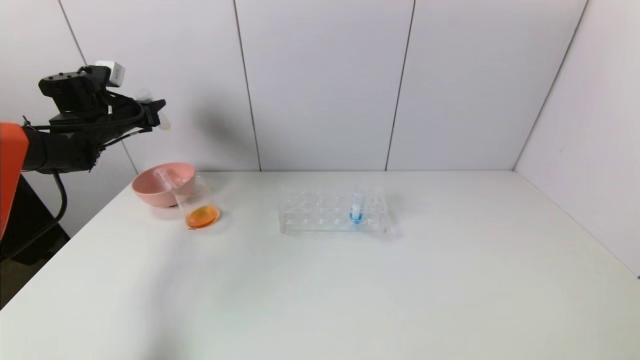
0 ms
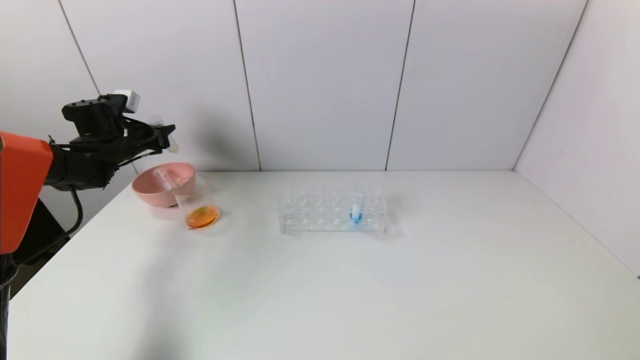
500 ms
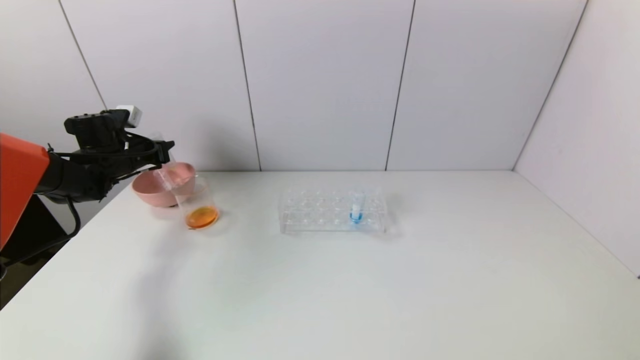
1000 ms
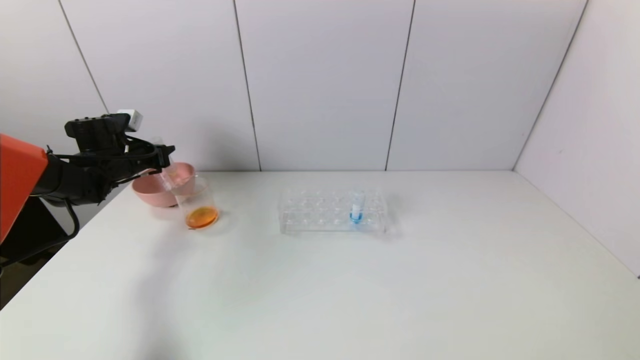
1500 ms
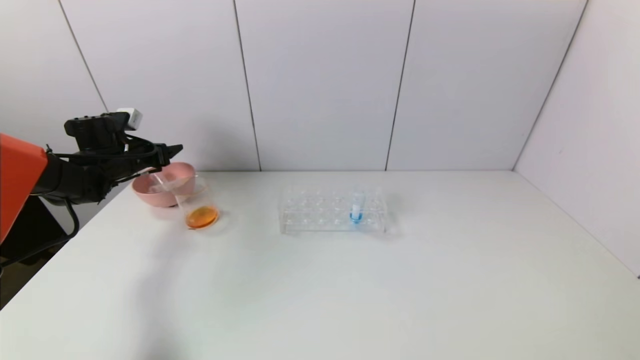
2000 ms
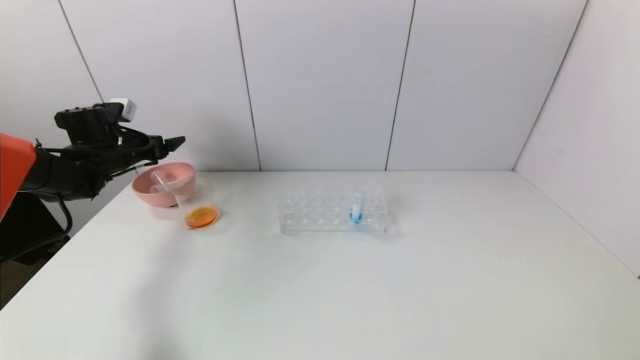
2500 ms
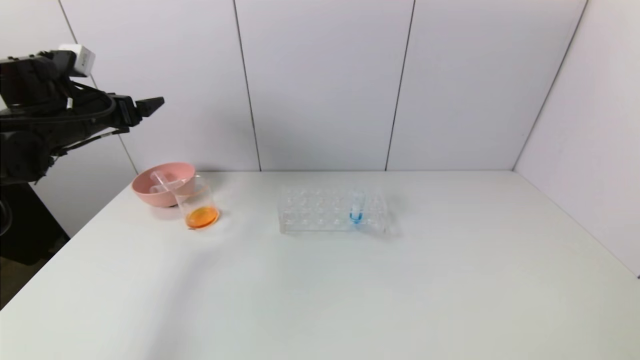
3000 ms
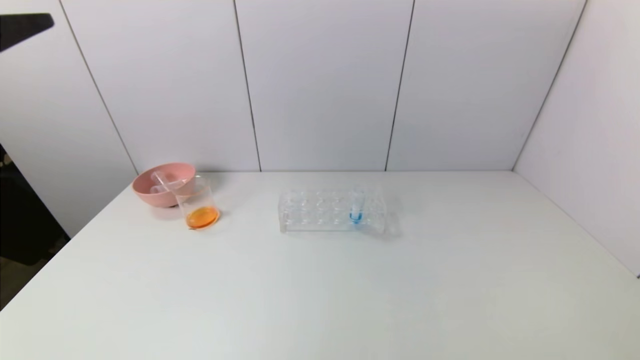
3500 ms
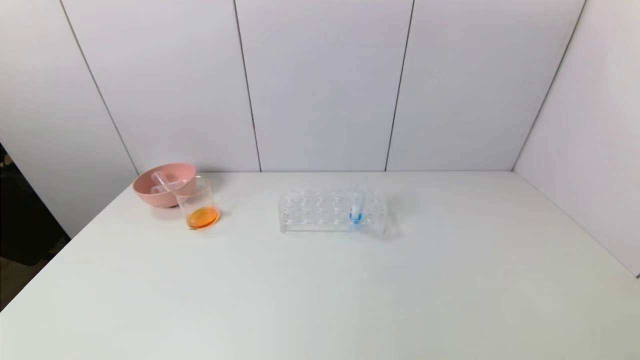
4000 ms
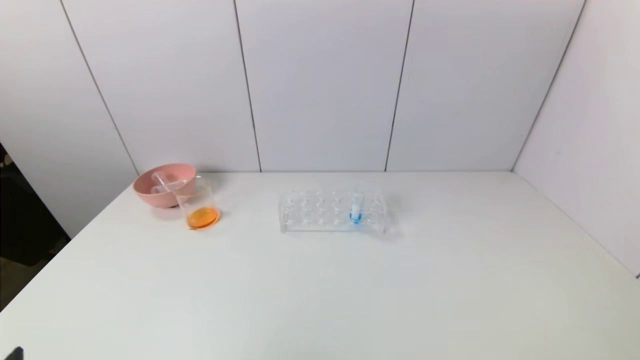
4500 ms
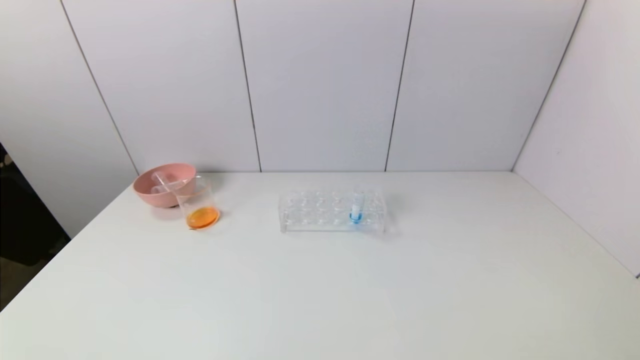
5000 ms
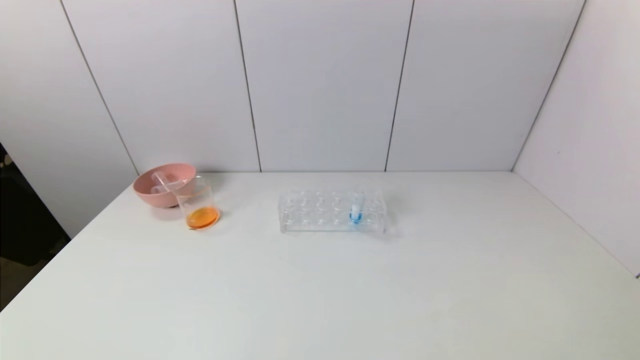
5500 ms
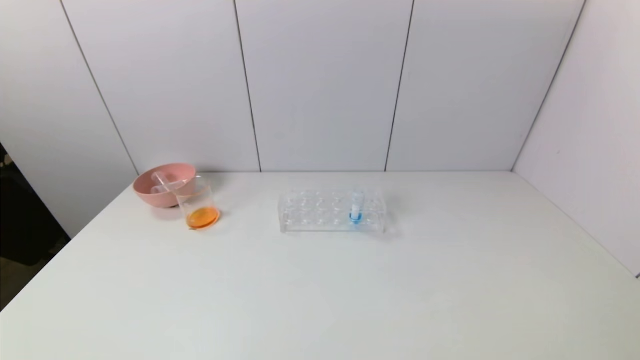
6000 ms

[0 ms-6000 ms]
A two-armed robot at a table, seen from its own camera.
Task of the whole recording: pick up the test tube with yellow pigment and the test tube with red pigment by grippers and pour them into the beaker.
Step, 0 ms to 2000 ms: Place the test tube into the pink bowl with the left gripper.
0 ms to 2000 ms: The left gripper is displaced downward by approximately 10 cm, and opens.
2000 ms to 4000 ms: The left gripper goes approximately 50 cm backward, and opens.

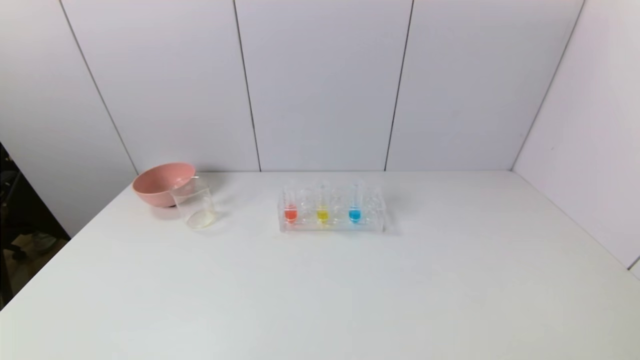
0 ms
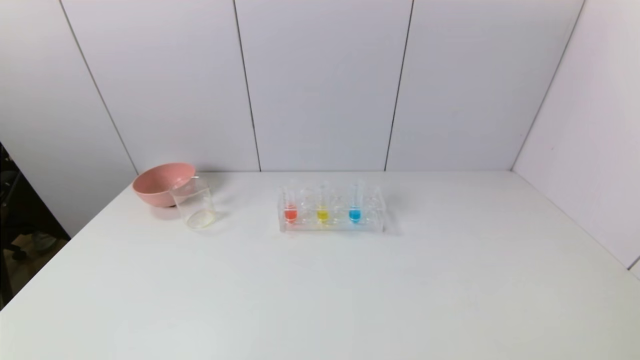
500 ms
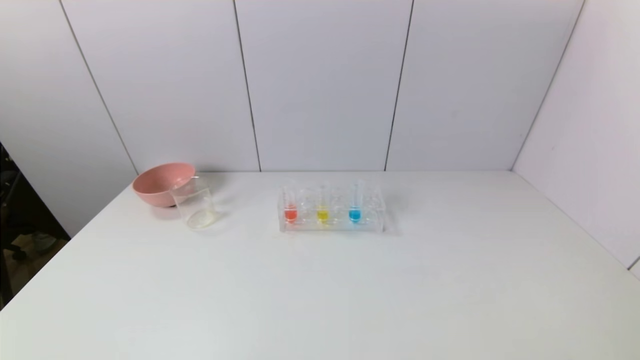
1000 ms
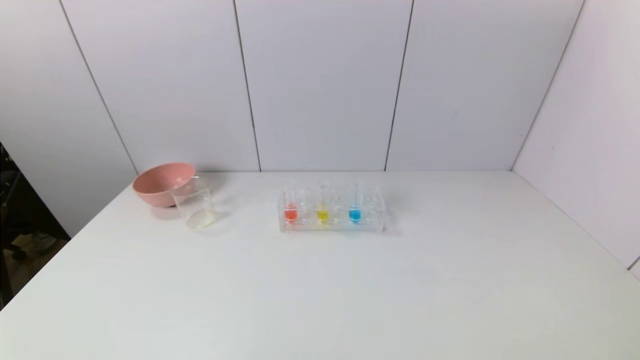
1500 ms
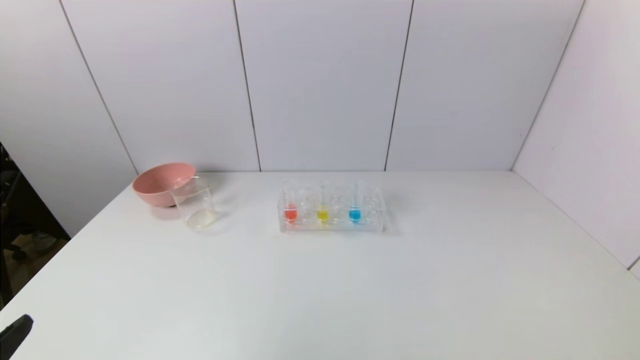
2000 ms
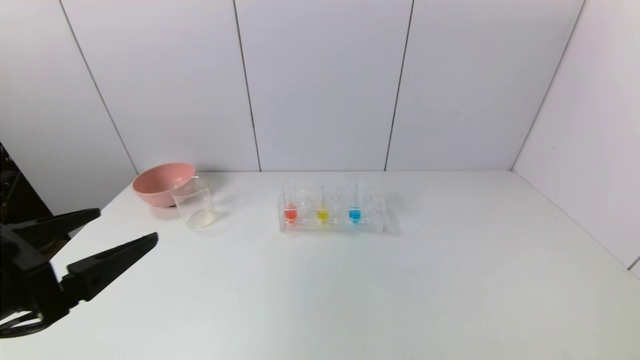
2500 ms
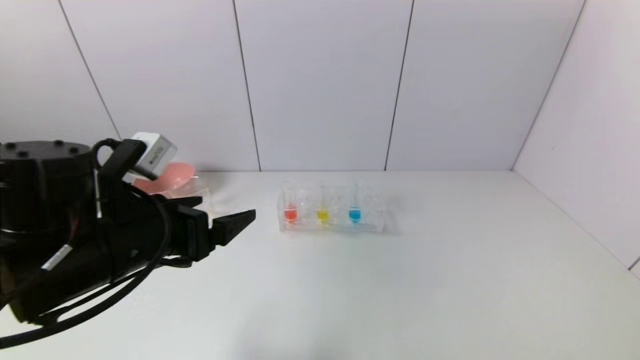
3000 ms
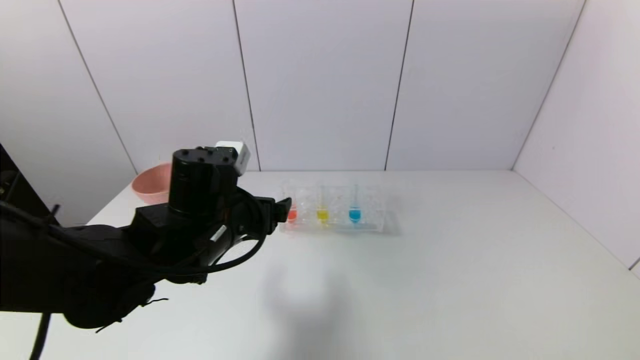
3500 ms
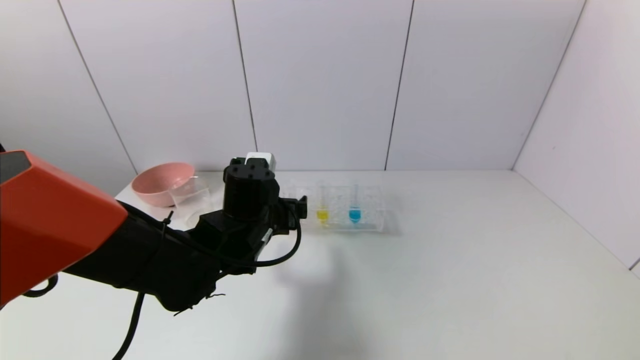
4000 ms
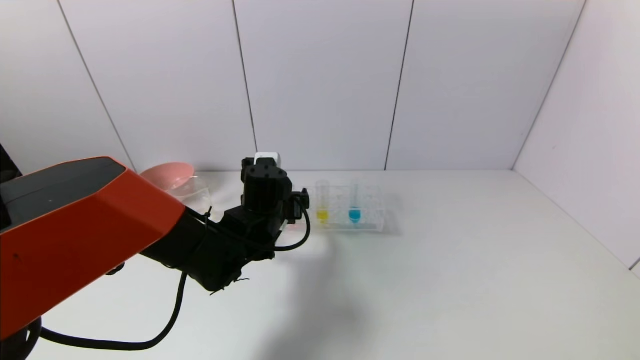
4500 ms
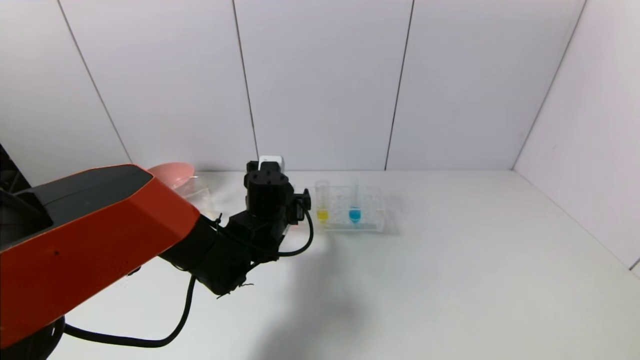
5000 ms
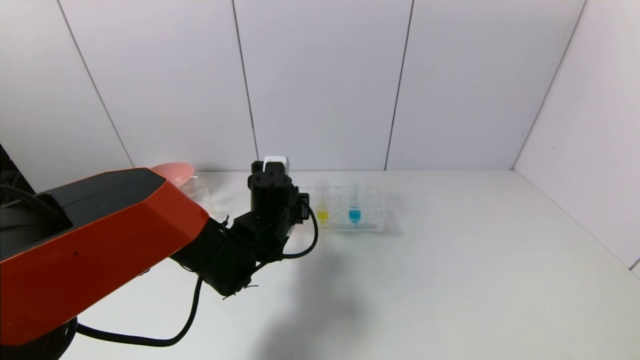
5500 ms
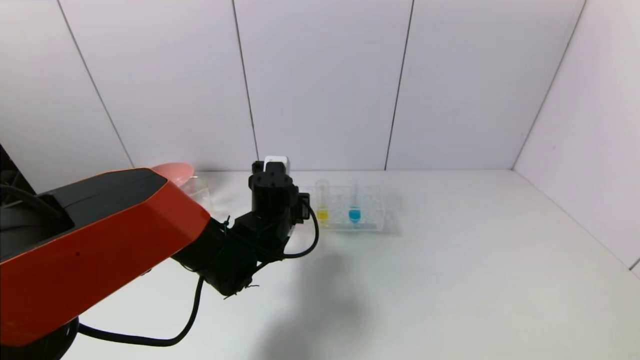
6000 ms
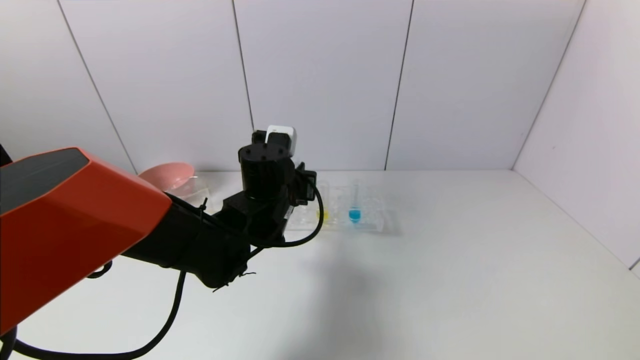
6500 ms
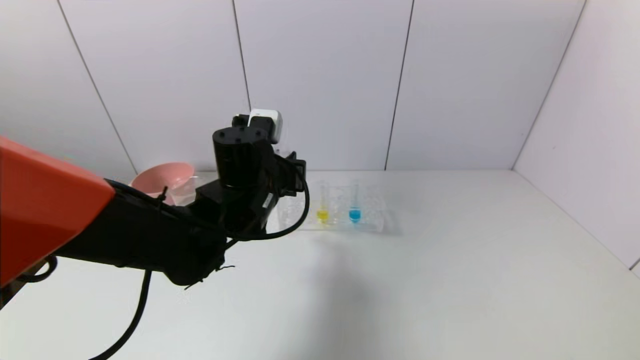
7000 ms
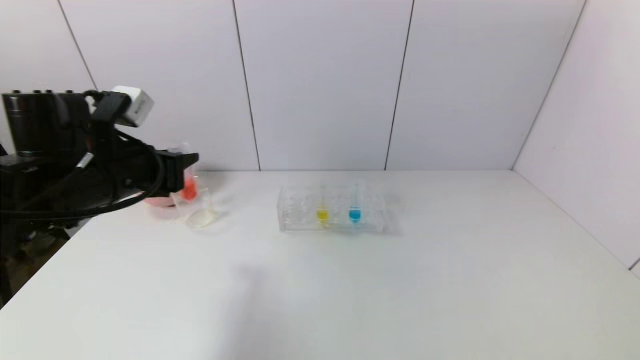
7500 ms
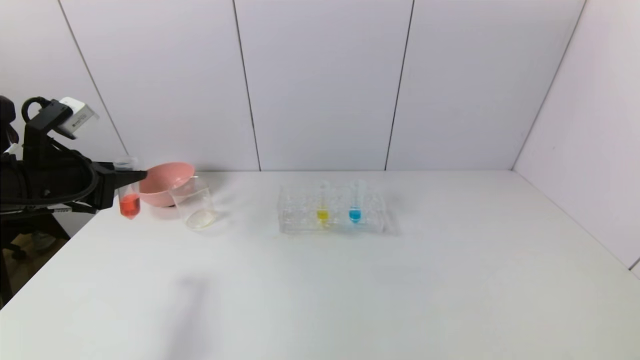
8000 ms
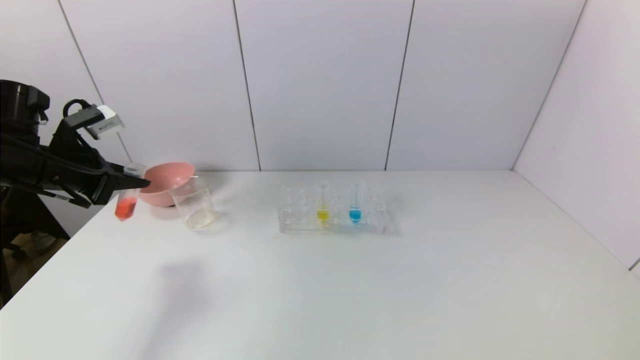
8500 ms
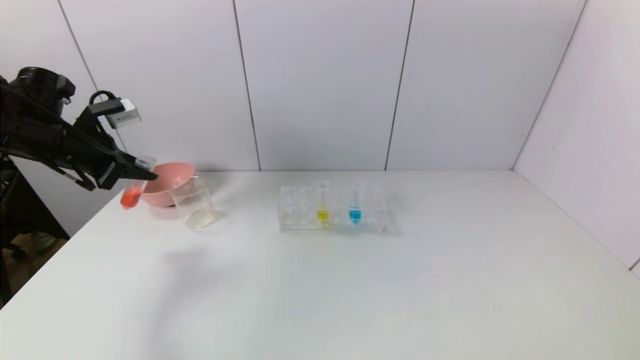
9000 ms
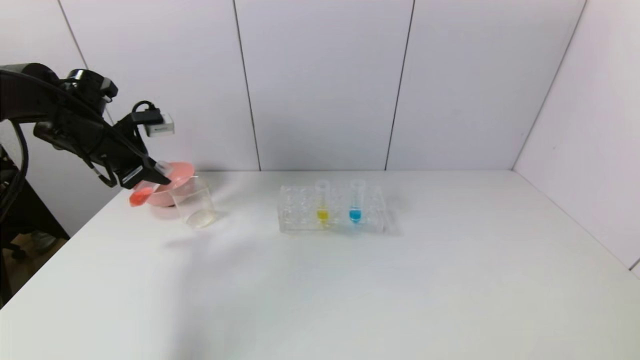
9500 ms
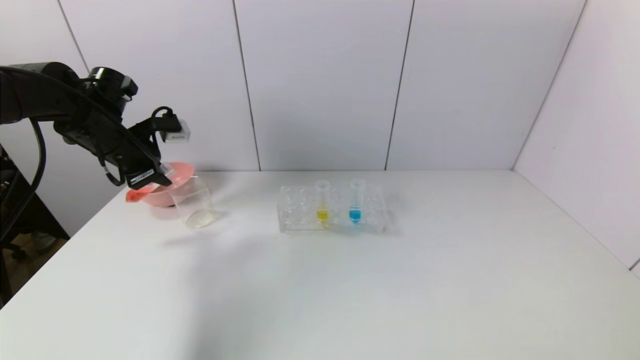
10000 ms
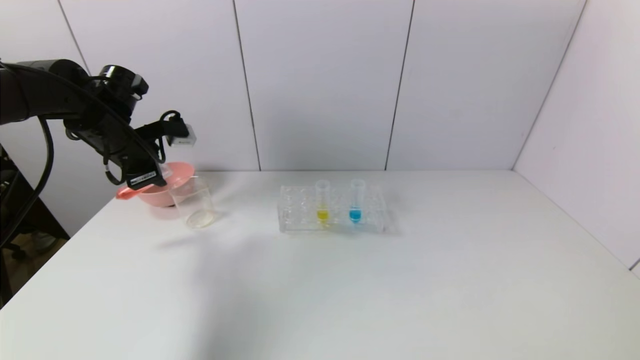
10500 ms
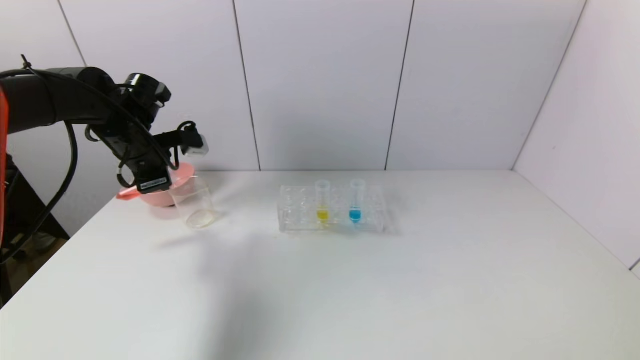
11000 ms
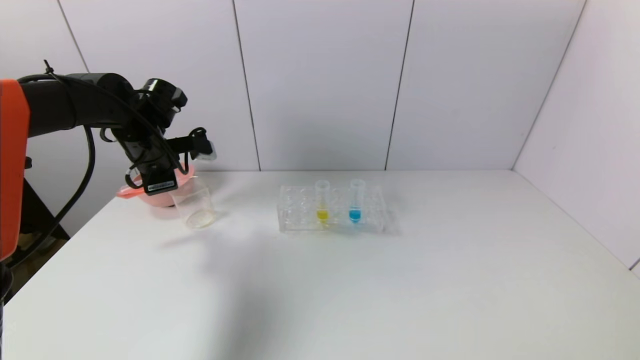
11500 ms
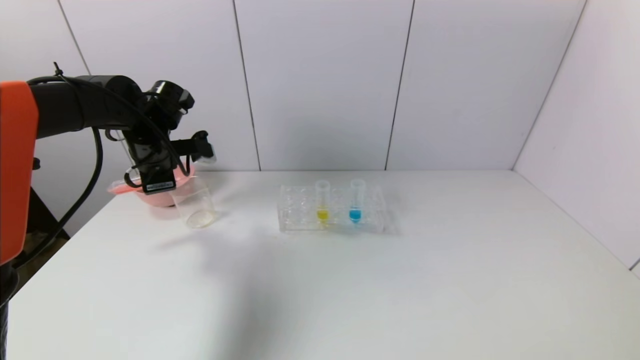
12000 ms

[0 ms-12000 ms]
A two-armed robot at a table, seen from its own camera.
Task of the whole recording: pick up the test tube with yellow pigment and the test tube with red pigment by grippers and pour them into the beaker.
Step, 0 ms to 5500 ms: Grasp the red reagent with the left gripper.
2000 ms to 4000 ms: The left gripper is displaced forward and to the right by about 35 cm.
4000 ms to 6000 ms: The left gripper changes place by approximately 5 cm, and closes up.
6000 ms to 8000 ms: The left gripper shifts roughly 30 cm to the left and upward.
8000 ms to 10000 ms: The left gripper travels forward by approximately 15 cm.
10000 ms to 12000 ms: The left gripper travels to the right by roughly 5 cm.

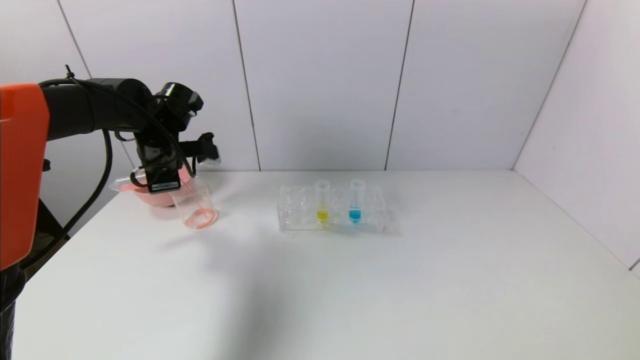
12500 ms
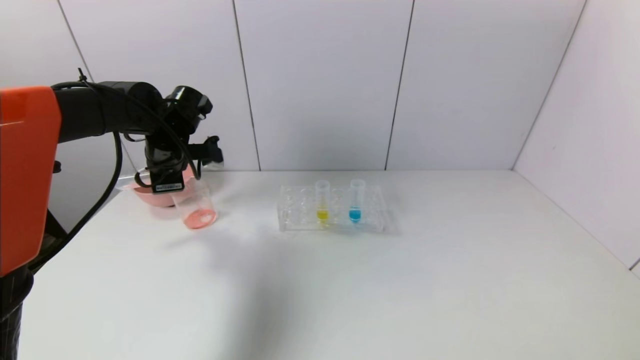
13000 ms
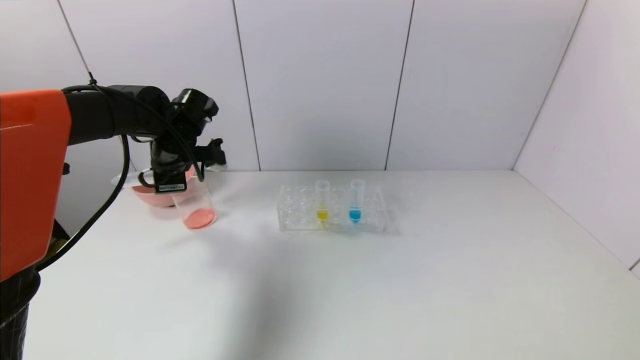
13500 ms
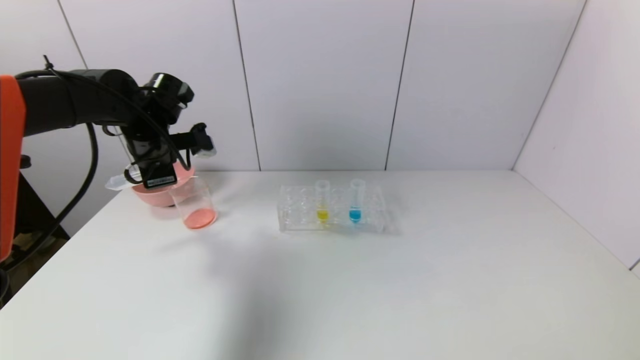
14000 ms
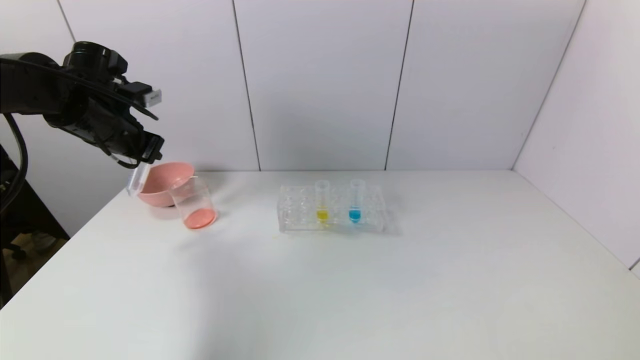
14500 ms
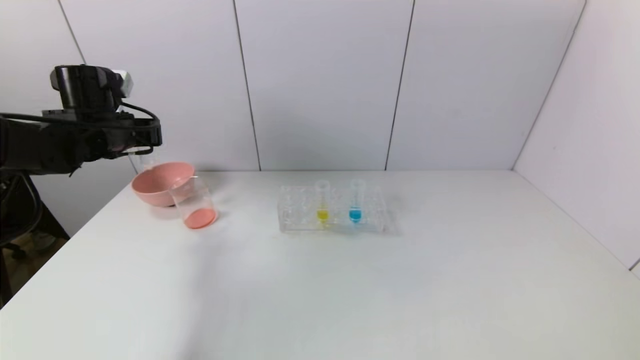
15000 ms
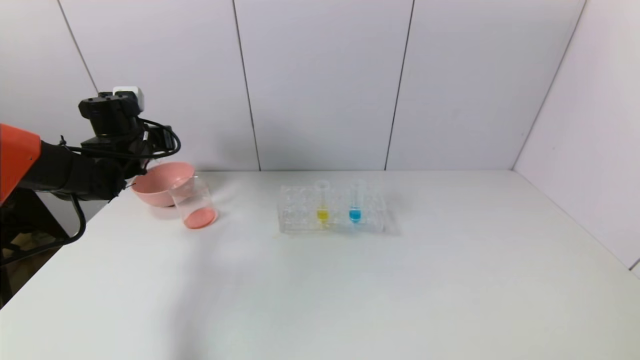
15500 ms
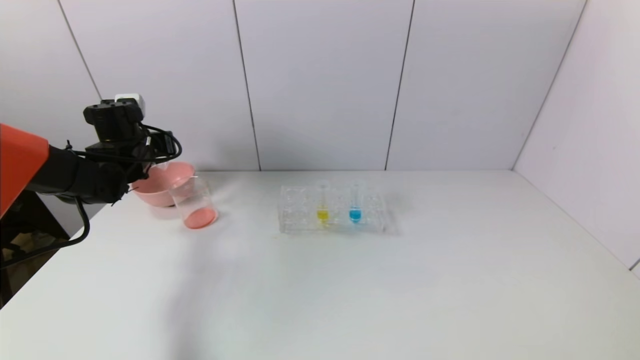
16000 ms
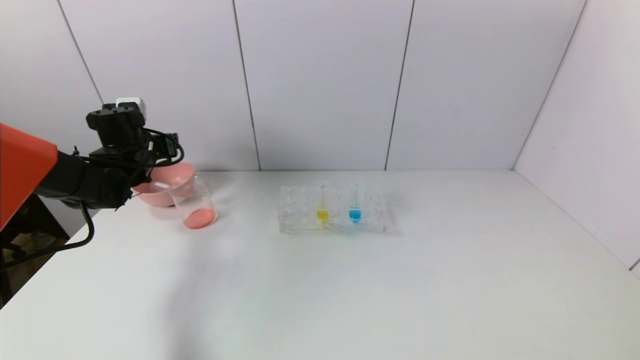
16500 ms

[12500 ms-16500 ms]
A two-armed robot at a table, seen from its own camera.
Task of the whole recording: pick up the test tube with yellow pigment and the test tube with red pigment by grippers and pour them into the beaker.
Step, 14000 ms to 16000 ms: Place the test tube into the pink bowl with the left gripper.
12500 ms to 14500 ms: The left gripper is displaced to the left by roughly 5 cm.
14500 ms to 16500 ms: The left gripper heads downward and forward, covering roughly 10 cm, and opens.
